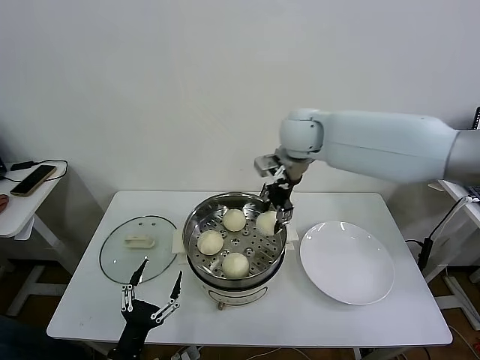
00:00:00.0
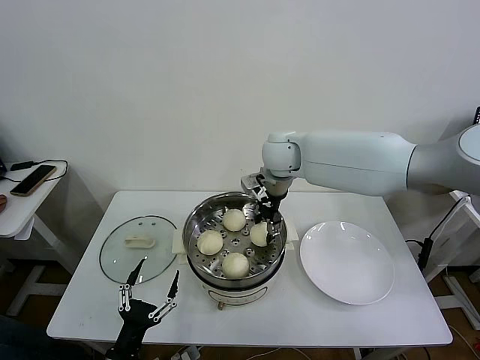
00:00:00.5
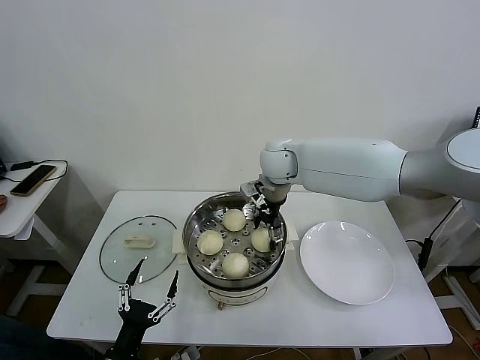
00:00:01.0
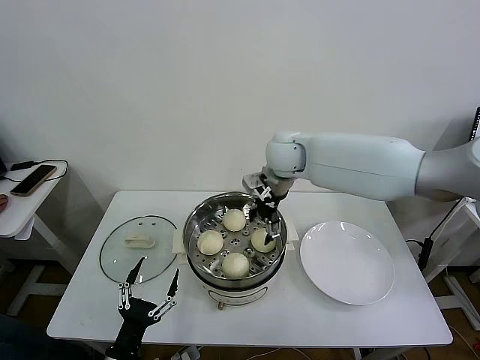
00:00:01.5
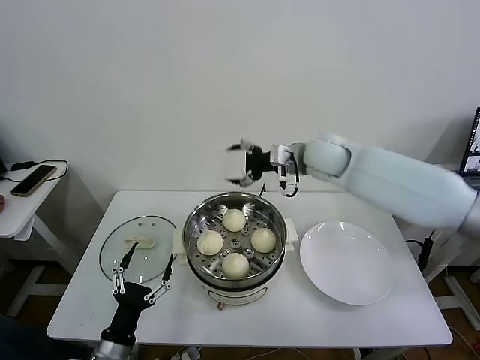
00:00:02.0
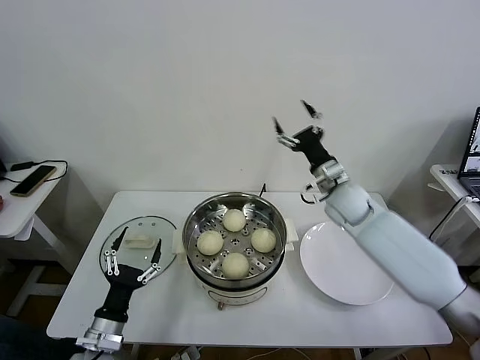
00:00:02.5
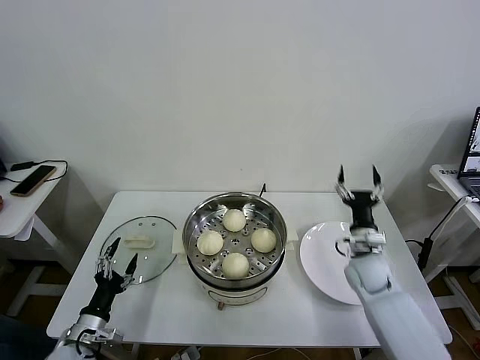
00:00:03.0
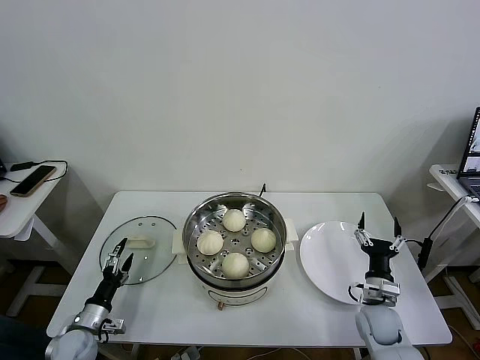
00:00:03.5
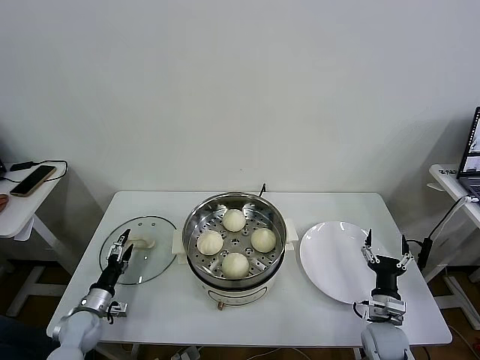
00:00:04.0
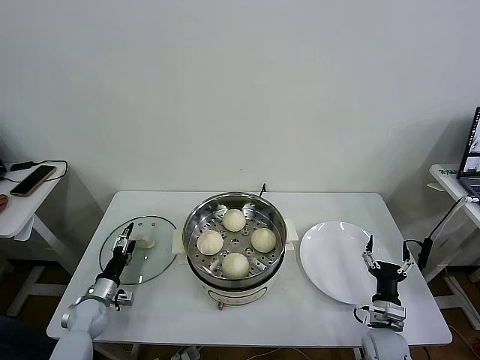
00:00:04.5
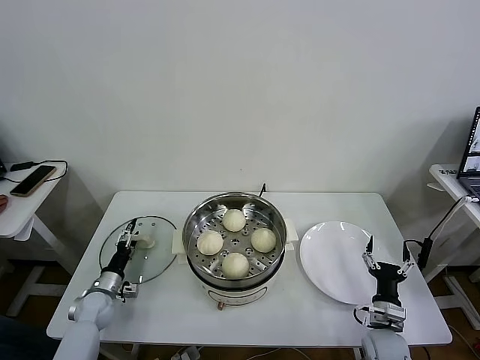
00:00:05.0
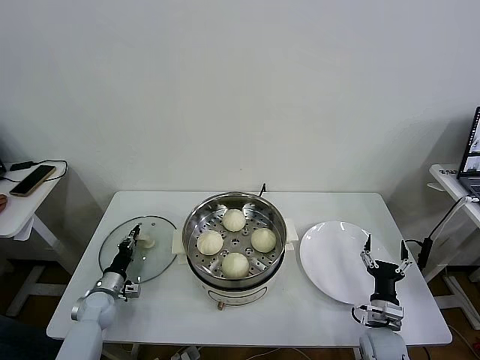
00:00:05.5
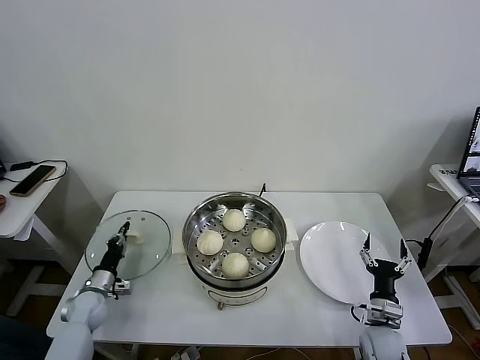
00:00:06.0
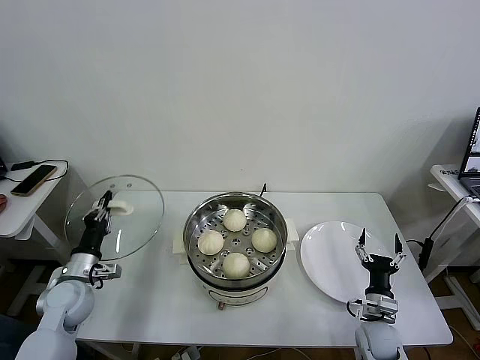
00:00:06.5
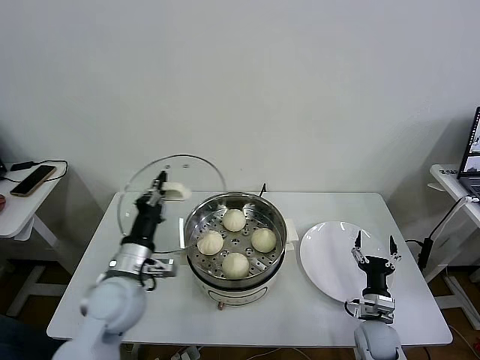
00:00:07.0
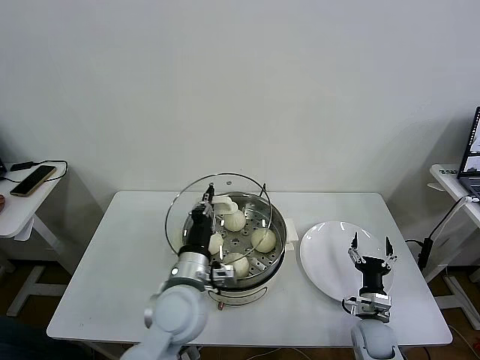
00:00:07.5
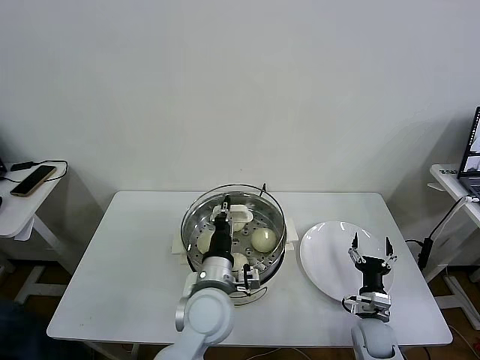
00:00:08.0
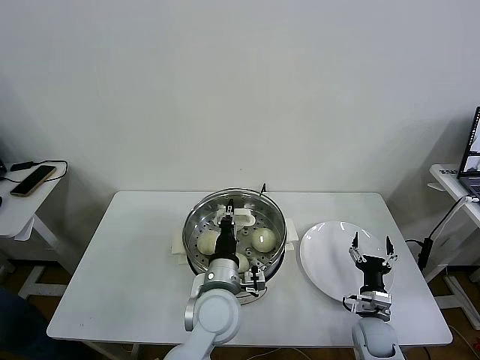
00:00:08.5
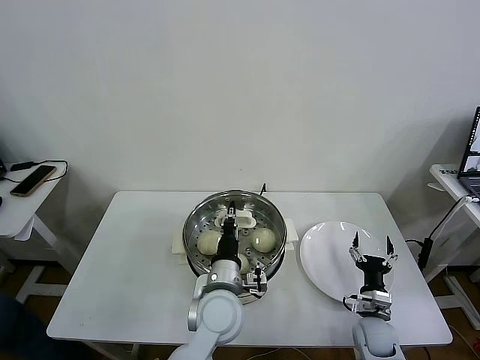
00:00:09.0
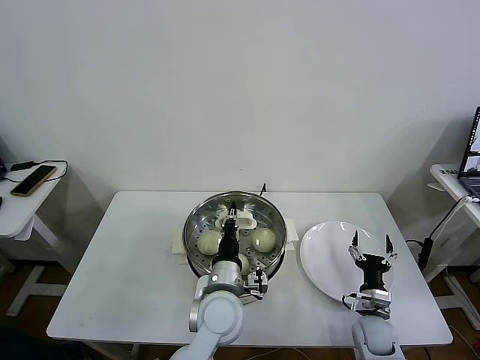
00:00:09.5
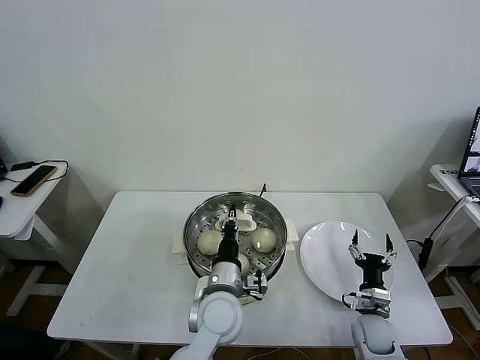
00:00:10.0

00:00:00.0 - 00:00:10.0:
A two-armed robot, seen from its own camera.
Task of the whole recording: take steamed baozi put them in steamer then cover it.
Step, 00:00:01.5 - 00:00:05.5: Grasp the pot lid with left gripper.
00:00:00.0 - 00:00:02.0: The right gripper moves to the right, some 5 cm, and opens up.
00:00:02.0 - 00:00:04.0: The right gripper is displaced downward, backward and to the right by approximately 50 cm; the left gripper goes roughly 20 cm forward, to the left and downward.
00:00:04.0 - 00:00:06.0: The left gripper moves forward, some 5 cm, and closes up.
00:00:06.0 - 00:00:08.0: The left gripper heads to the right and upward, covering approximately 40 cm.
00:00:08.0 - 00:00:10.0: There are only small adjustments of the grippers.

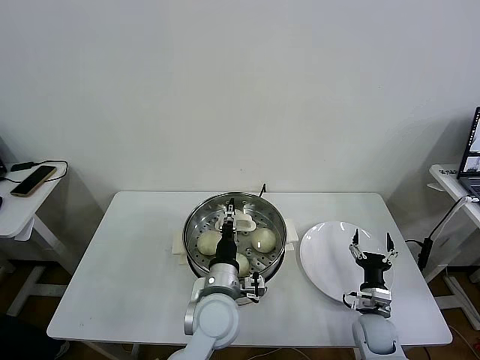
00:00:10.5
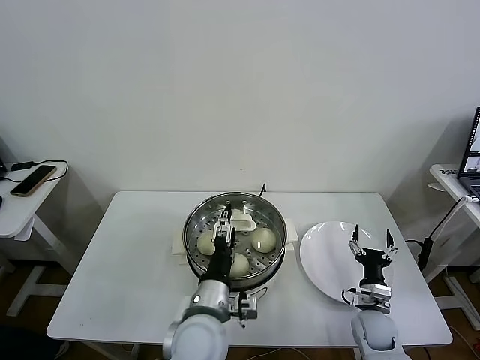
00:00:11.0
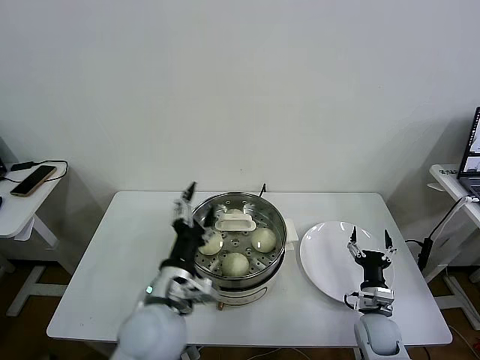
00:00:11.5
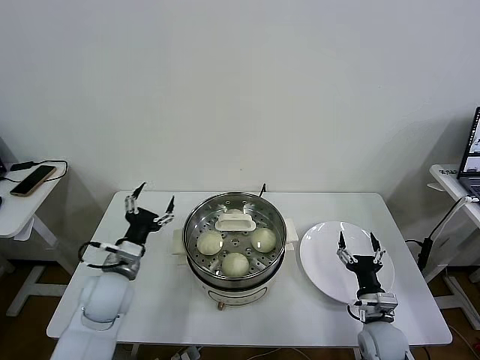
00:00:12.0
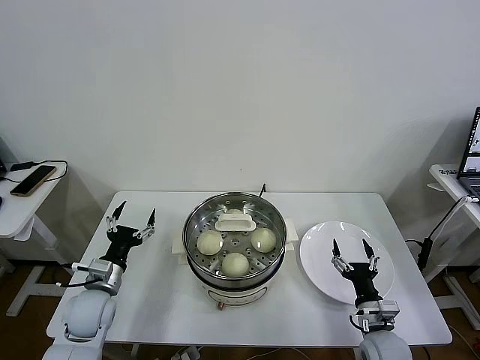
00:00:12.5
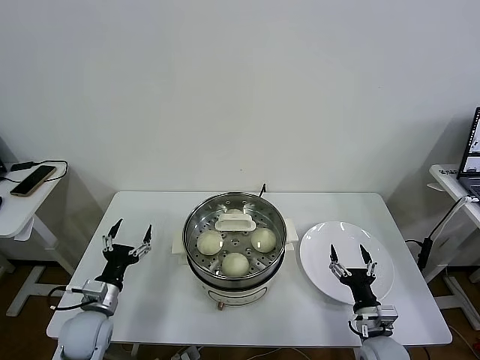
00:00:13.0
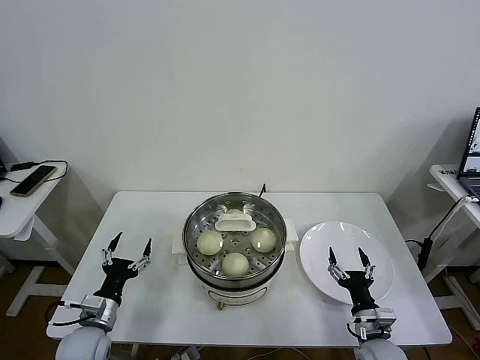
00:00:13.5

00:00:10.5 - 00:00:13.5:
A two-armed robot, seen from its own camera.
Task of the whole recording: take steamed baozi put them in steamer then cover it.
00:00:10.5 - 00:00:12.0: The left gripper is displaced to the left by roughly 20 cm, and opens its fingers.
00:00:12.0 - 00:00:13.5: The left gripper goes roughly 15 cm downward, to the left and backward.
